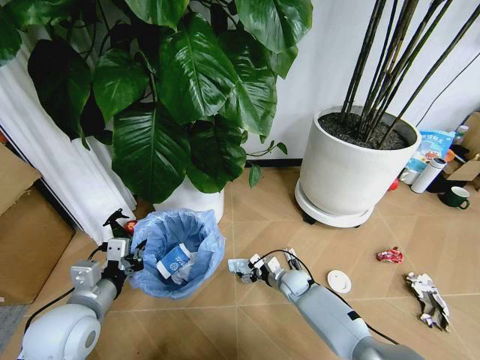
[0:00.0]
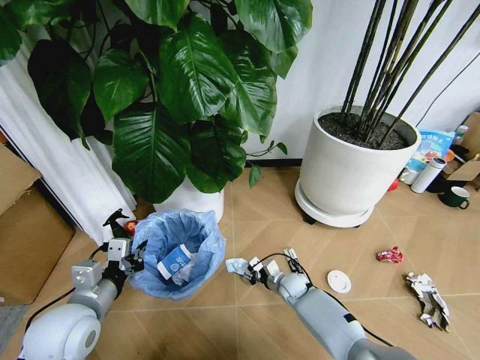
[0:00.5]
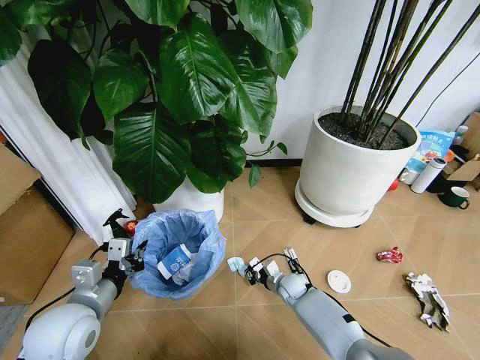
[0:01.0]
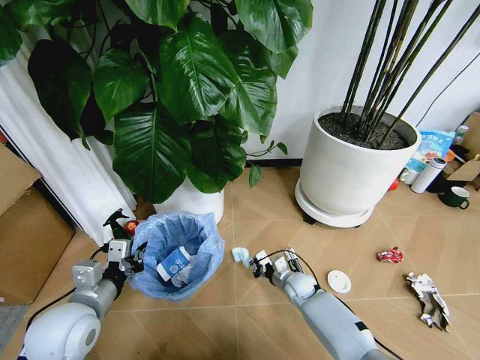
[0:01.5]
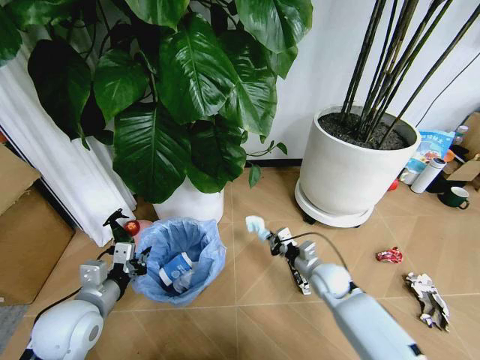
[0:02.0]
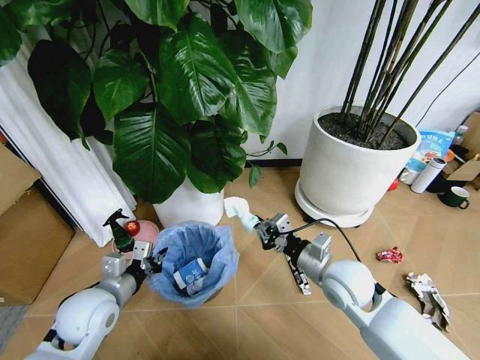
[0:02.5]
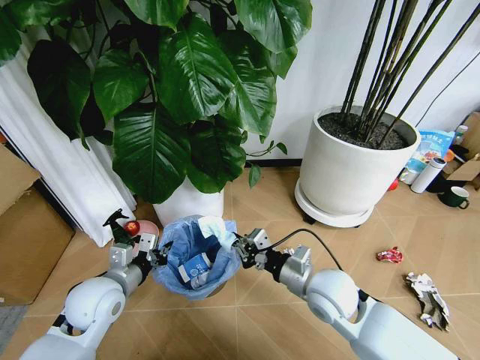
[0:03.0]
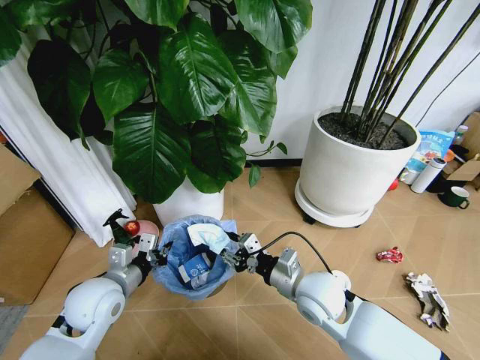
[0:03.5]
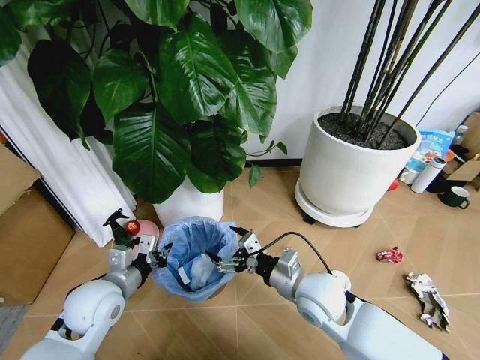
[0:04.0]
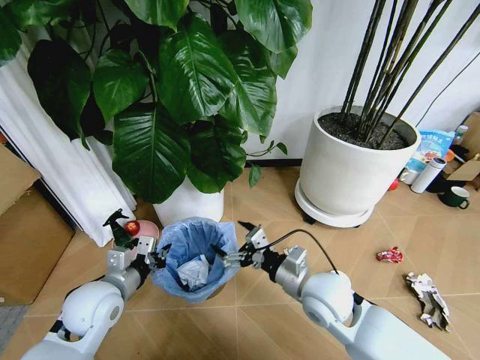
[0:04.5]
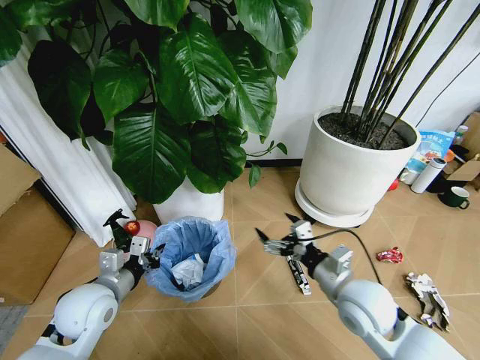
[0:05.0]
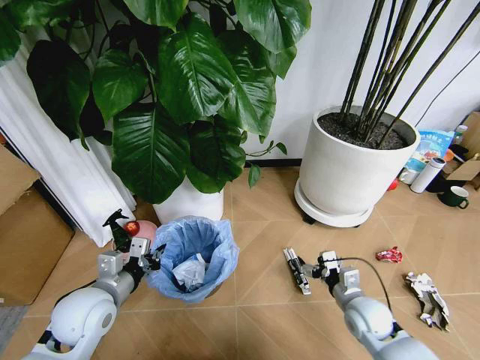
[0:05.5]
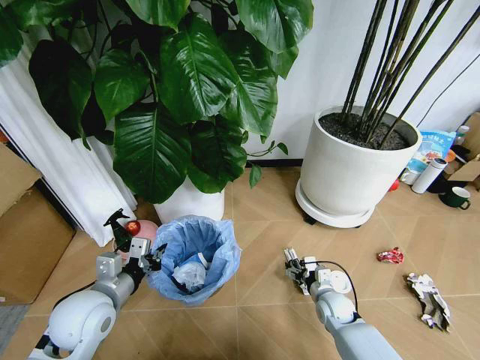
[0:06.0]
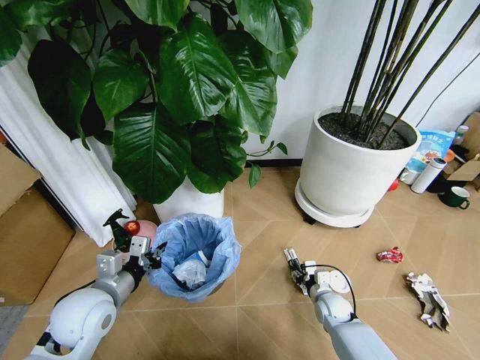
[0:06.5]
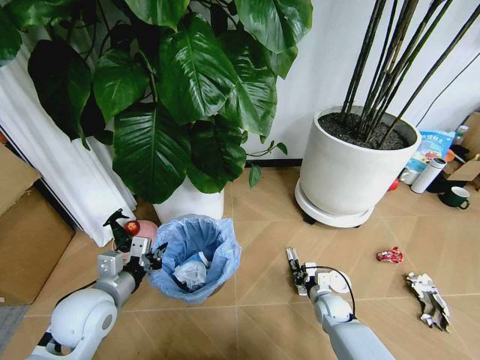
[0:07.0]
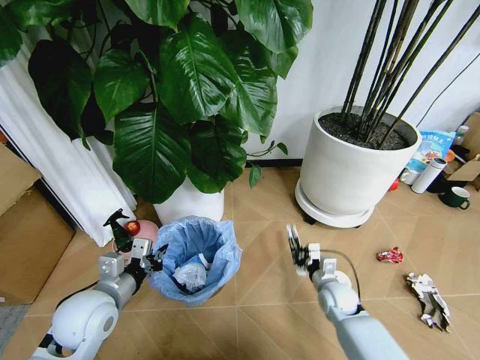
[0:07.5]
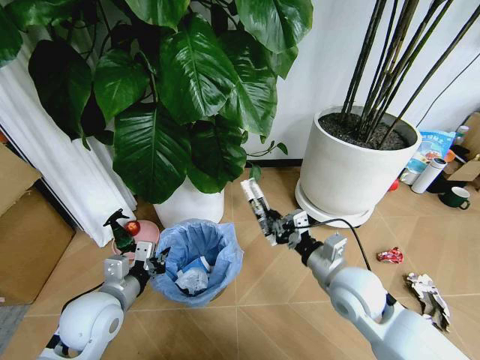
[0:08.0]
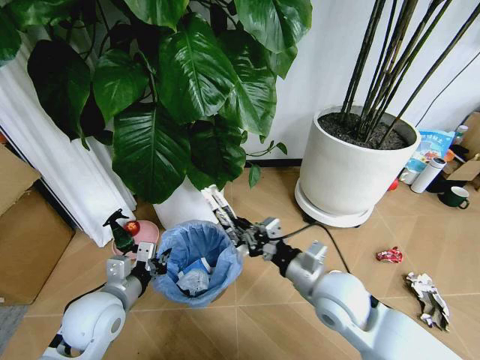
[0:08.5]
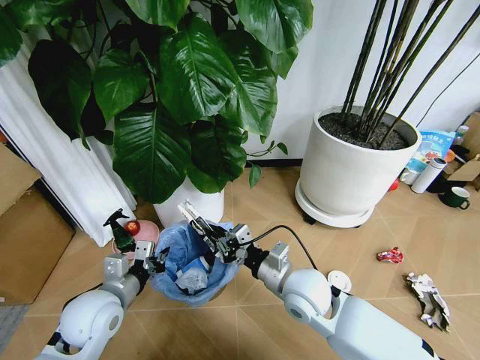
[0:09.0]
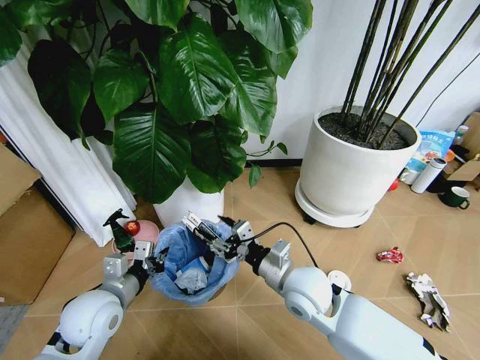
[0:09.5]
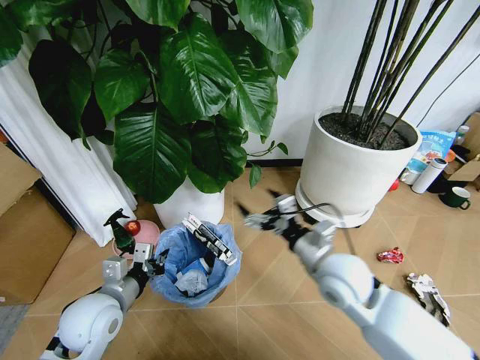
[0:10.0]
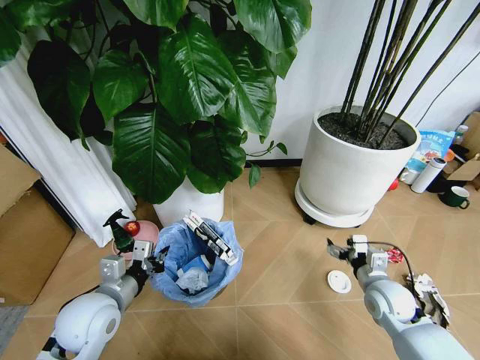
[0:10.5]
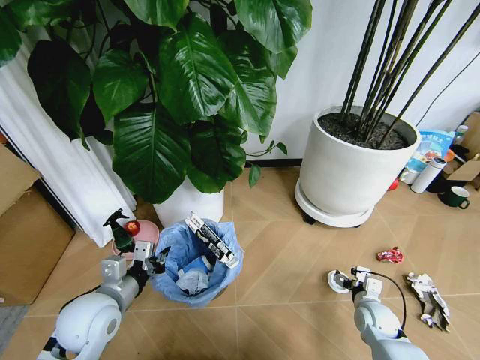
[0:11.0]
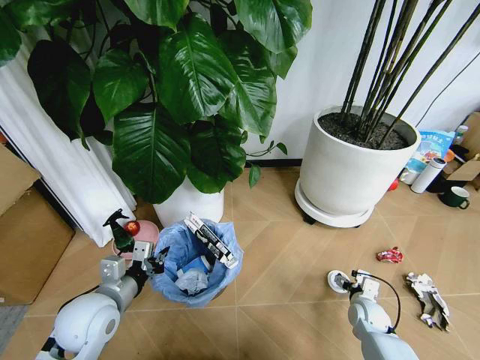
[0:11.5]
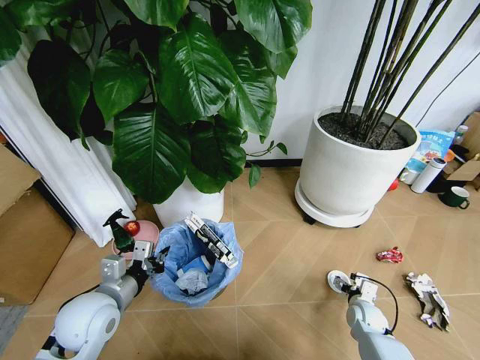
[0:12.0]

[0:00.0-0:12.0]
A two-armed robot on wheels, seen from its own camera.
Task of the whole recording: Pick up the trash bin and place the garbage on the floor into it.
0:00.0 to 0:02.0: The right gripper moves upward and to the right, roughly 15 cm, and closes its fingers.
0:02.0 to 0:04.0: The right gripper heads upward, to the left and backward, covering roughly 15 cm, and opens up.
0:04.0 to 0:06.0: The right gripper goes approximately 25 cm downward and to the right.
0:06.0 to 0:08.0: The right gripper moves upward, approximately 25 cm, and closes up.
0:08.0 to 0:10.0: The right gripper moves approximately 10 cm to the left and comes back, and opens.
0:10.0 to 0:12.0: The right gripper goes some 35 cm downward and to the right.

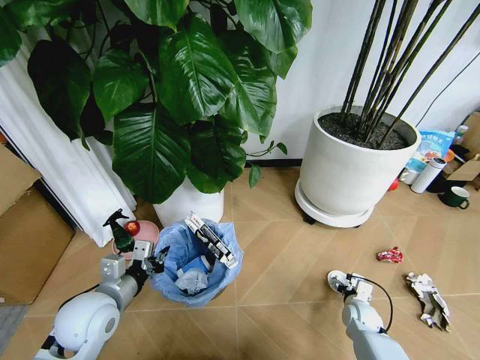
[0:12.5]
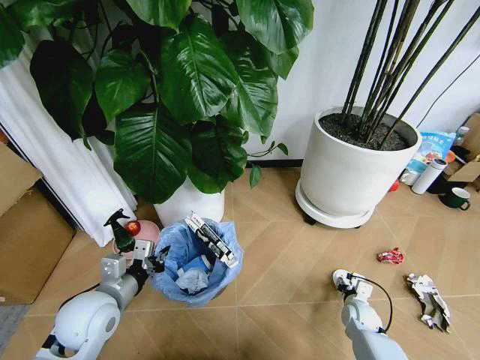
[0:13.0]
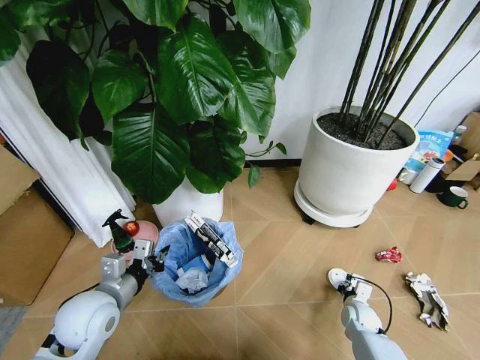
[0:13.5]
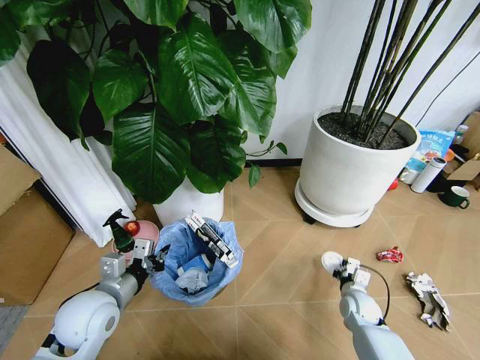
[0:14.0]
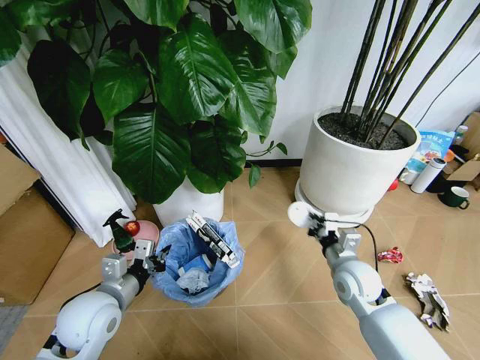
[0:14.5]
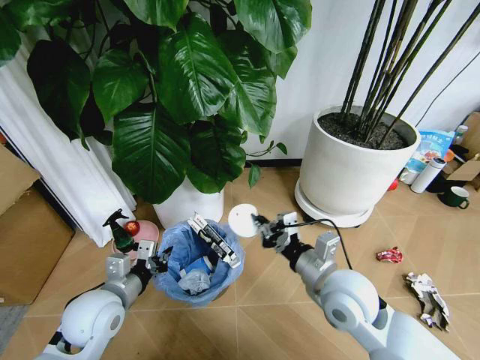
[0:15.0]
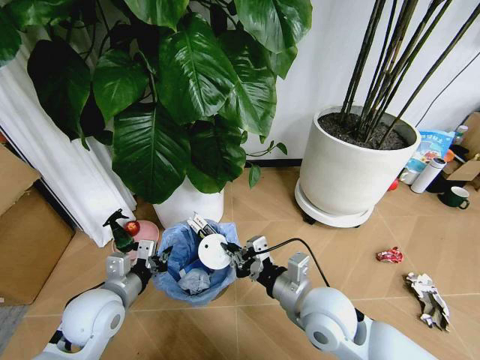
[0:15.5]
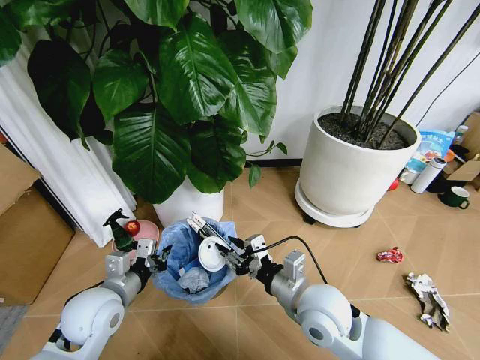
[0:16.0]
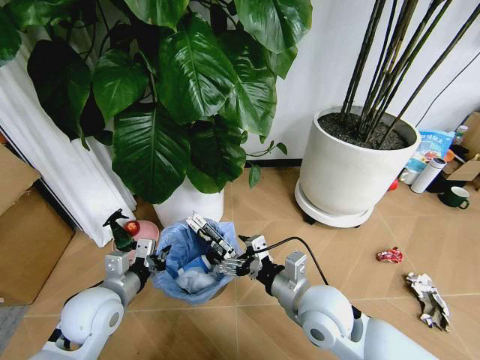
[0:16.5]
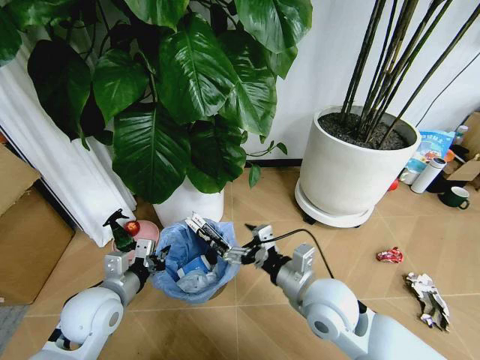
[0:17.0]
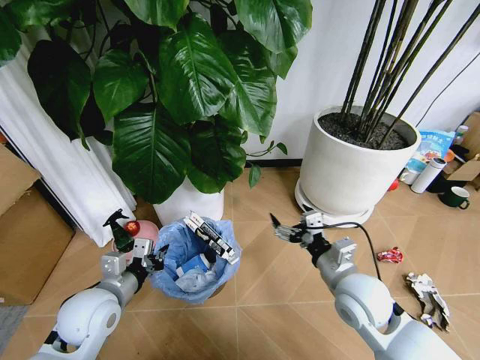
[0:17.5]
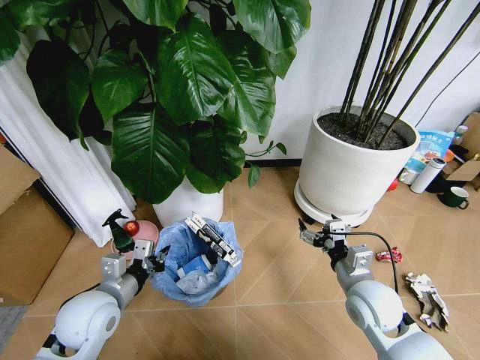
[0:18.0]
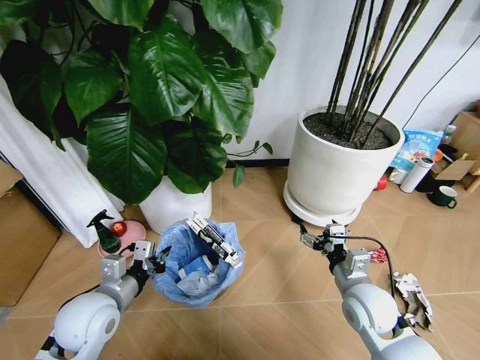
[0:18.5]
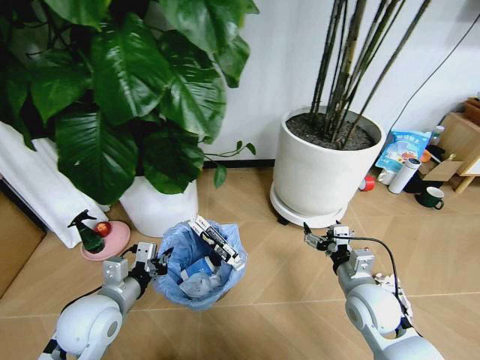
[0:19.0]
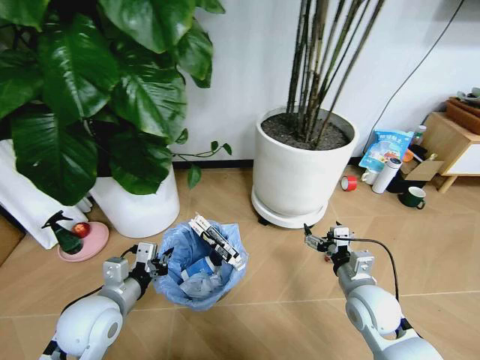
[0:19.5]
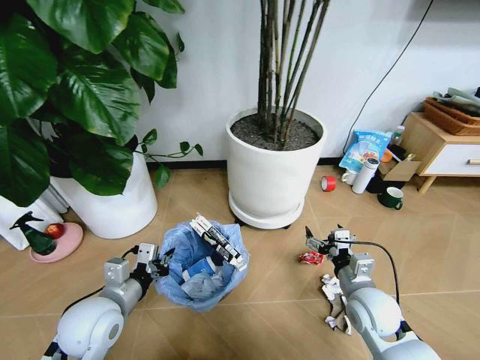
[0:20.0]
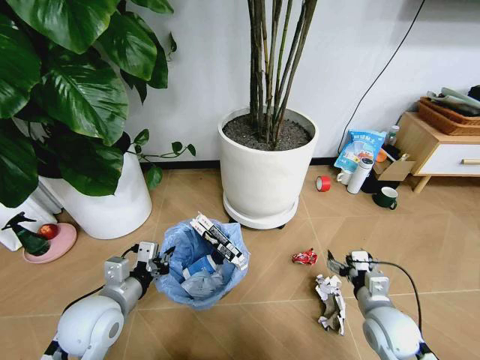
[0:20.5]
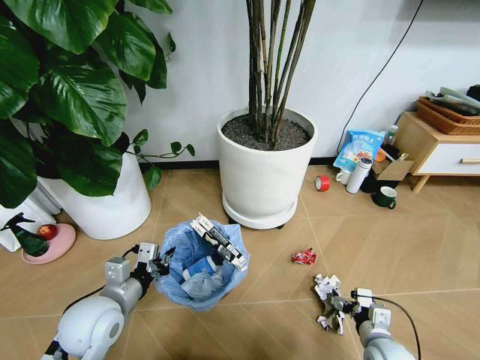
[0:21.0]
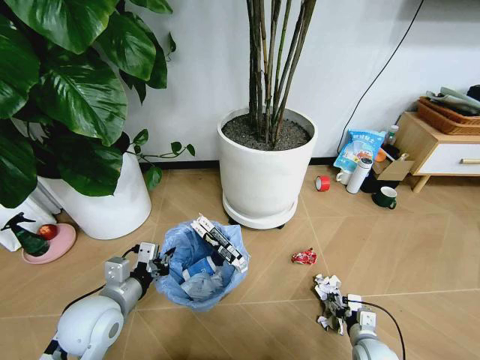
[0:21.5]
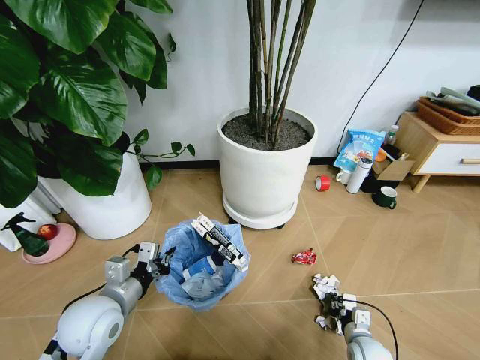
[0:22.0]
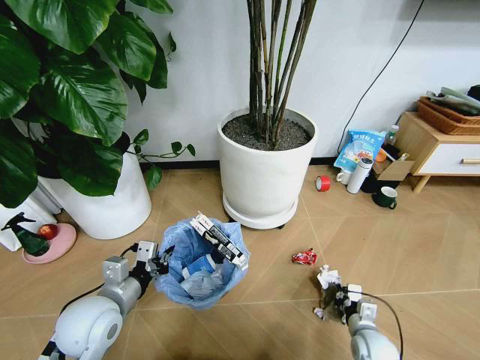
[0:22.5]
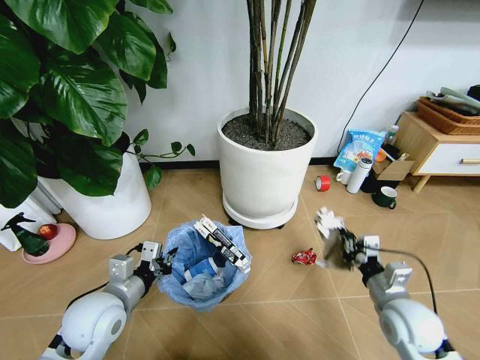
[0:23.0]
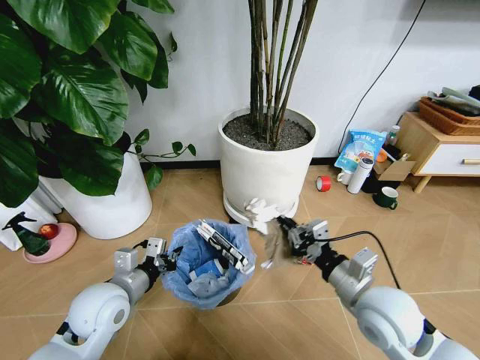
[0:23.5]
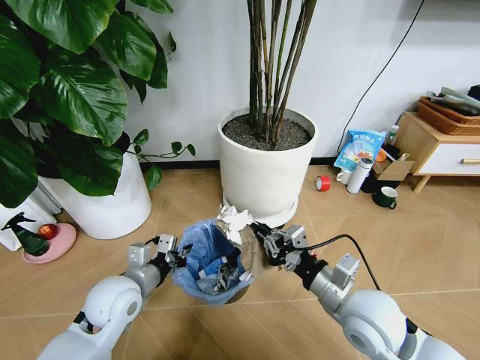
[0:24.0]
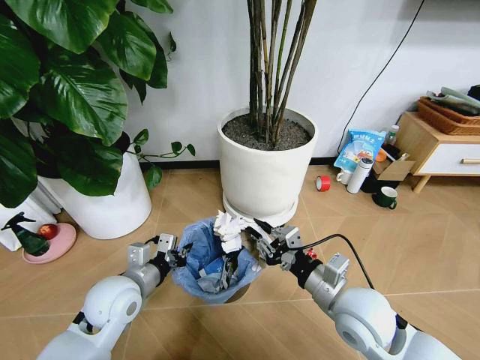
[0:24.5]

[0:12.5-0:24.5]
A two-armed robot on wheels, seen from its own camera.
Task of the whole recording: Pick up the trash bin and place the garbage on the floor into it.
0:12.5 to 0:14.5: The right gripper travels upward by approximately 20 cm, and closes up.
0:14.5 to 0:16.5: The right gripper goes approximately 20 cm to the left, upward and backward, and opens.
0:16.5 to 0:18.5: The right gripper heads to the right and downward, covering about 15 cm.
0:18.5 to 0:20.5: The right gripper is displaced to the right by roughly 5 cm.
0:20.5 to 0:22.5: The right gripper goes about 15 cm downward, and closes.
0:22.5 to 0:24.5: The right gripper travels upward and to the left by approximately 30 cm.

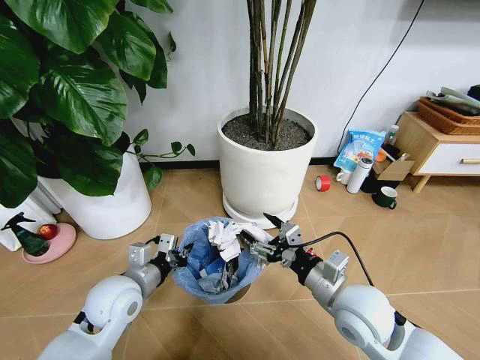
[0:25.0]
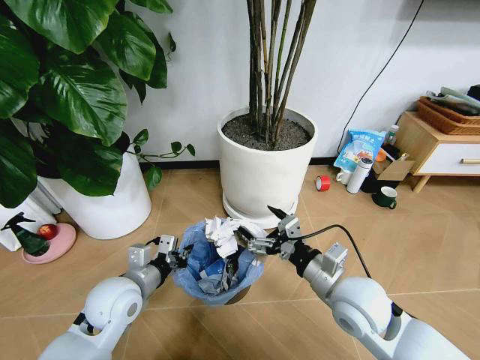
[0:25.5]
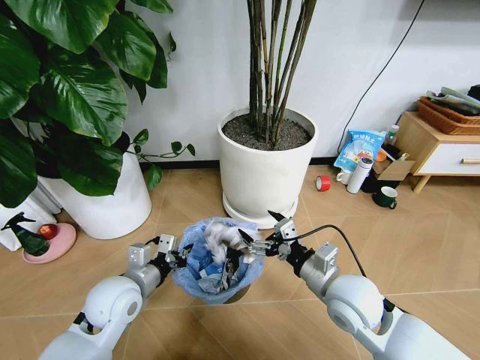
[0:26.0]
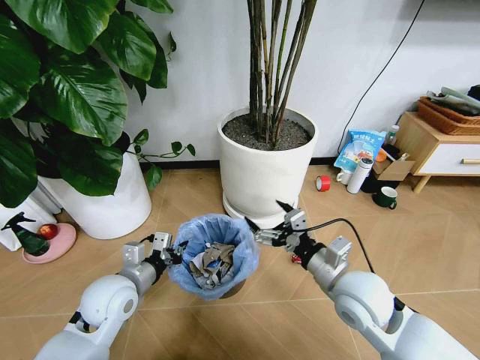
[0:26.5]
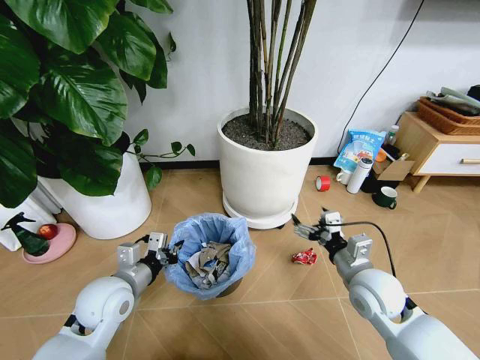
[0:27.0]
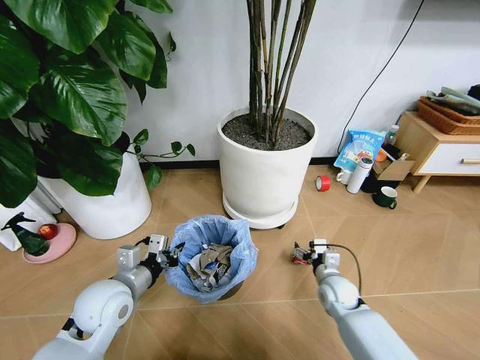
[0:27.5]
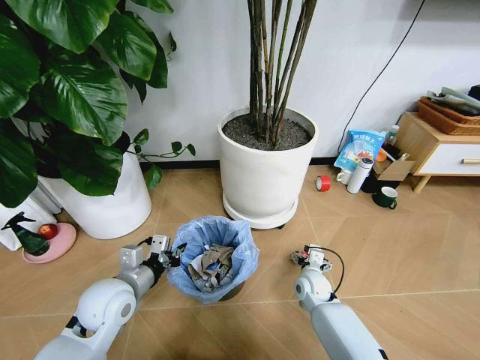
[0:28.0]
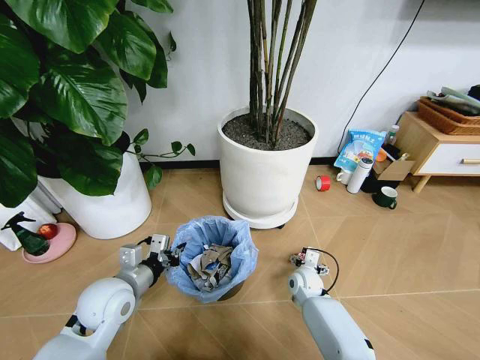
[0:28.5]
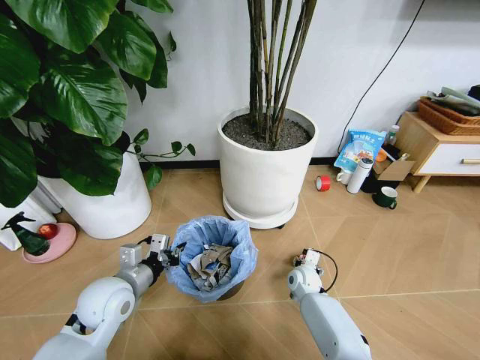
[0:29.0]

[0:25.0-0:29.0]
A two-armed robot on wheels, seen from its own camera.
Task of the whole recording: Pick up the trash bin and place the garbage on the floor into it.
0:25.0 to 0:27.0: The right gripper is displaced to the right by roughly 5 cm.
0:27.0 to 0:29.0: The right gripper is displaced downward and forward by roughly 25 cm.
